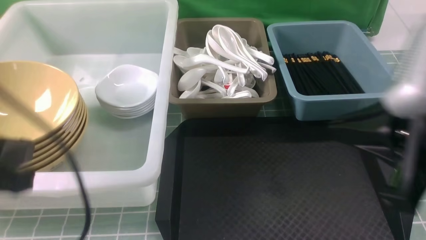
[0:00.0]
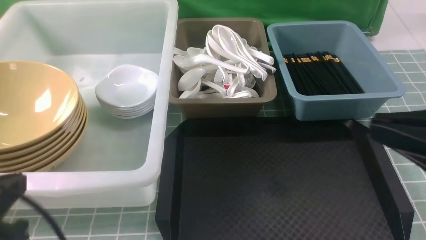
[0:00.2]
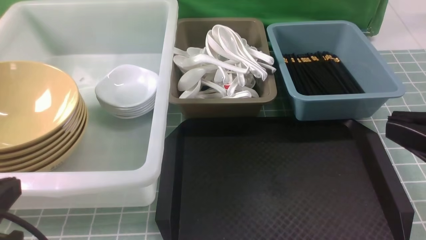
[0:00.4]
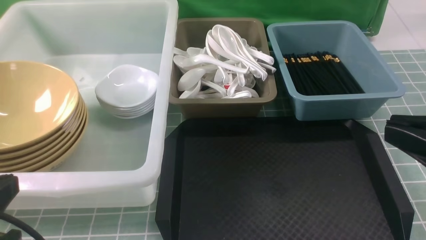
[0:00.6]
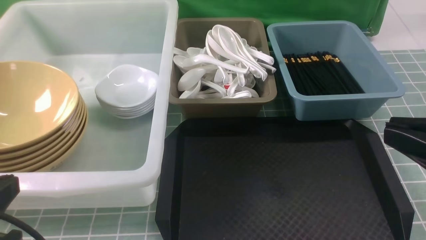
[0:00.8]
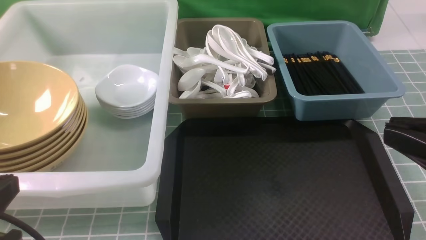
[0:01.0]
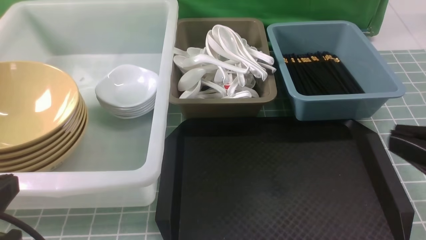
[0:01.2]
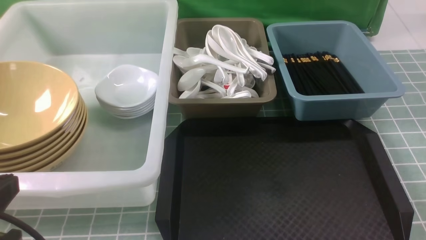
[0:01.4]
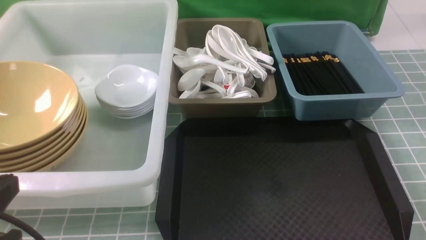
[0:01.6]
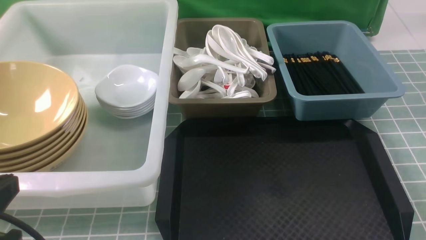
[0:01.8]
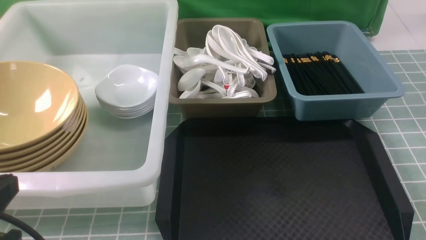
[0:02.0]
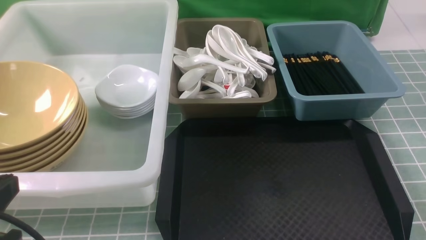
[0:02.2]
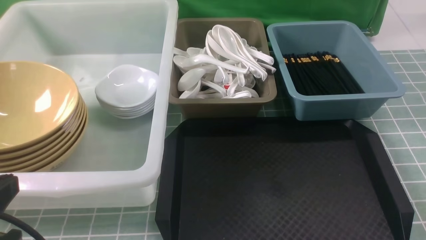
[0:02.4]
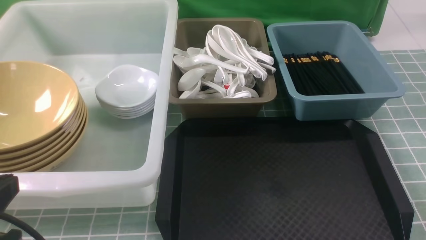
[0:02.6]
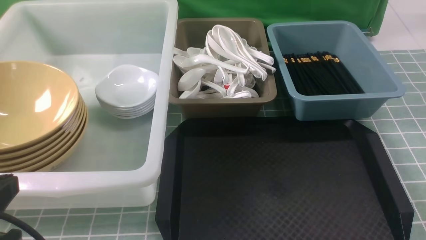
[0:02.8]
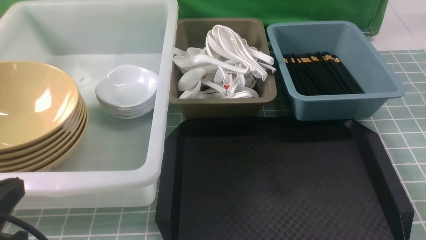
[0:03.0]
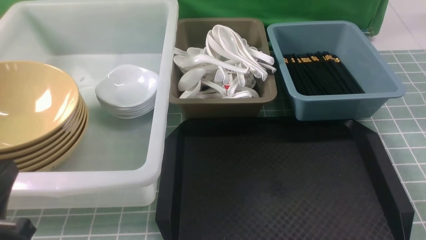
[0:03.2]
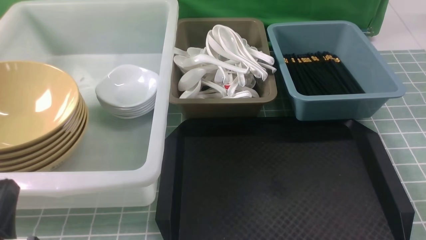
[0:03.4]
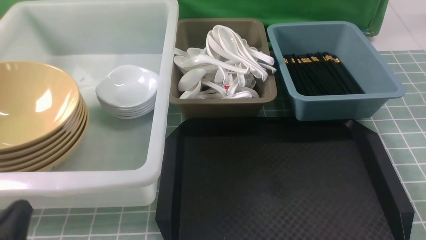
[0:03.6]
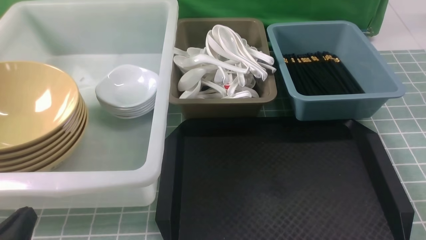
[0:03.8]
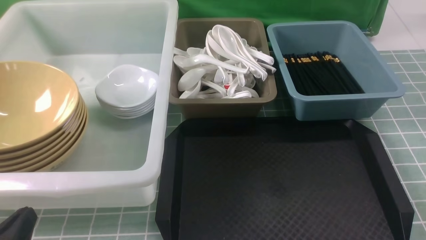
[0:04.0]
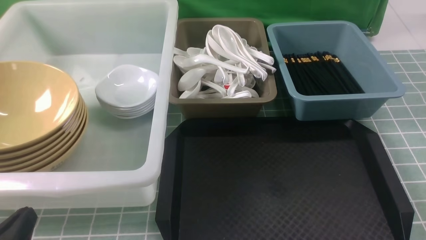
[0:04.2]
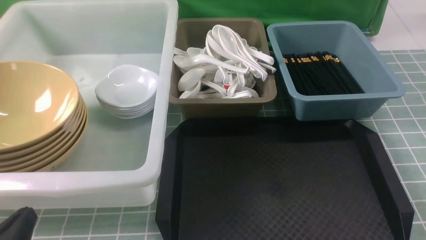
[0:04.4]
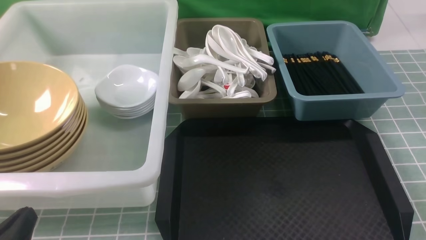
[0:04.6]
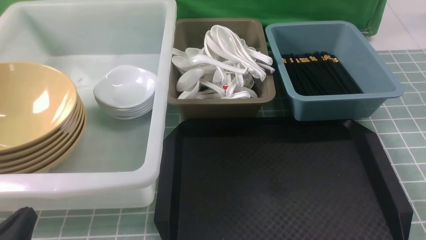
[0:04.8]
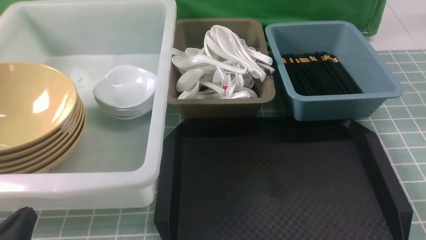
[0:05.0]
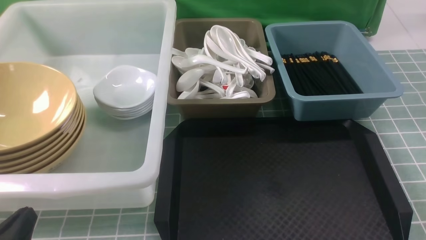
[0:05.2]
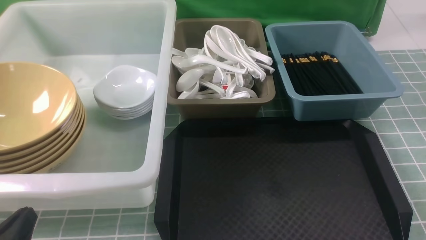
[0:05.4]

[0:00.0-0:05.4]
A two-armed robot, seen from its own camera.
Task of the whole recording: on blue table put chopsticks spoon bowls plates into blue grey white boxes.
0:00.0 to 0:01.4: The right gripper travels downward, to the right and backward by about 15 cm, while the left gripper moves about 5 cm.
0:02.8 to 0:04.0: The left gripper is displaced downward by approximately 10 cm.
0:04.0 to 0:05.4: Neither gripper changes place.

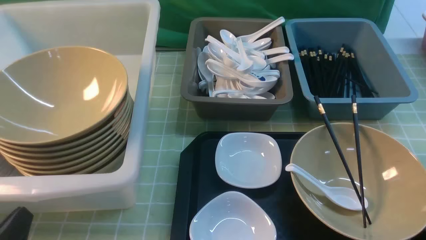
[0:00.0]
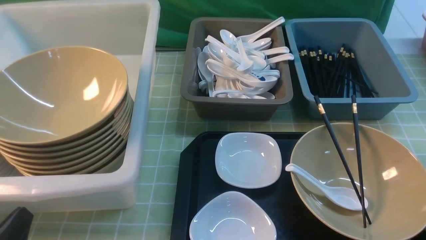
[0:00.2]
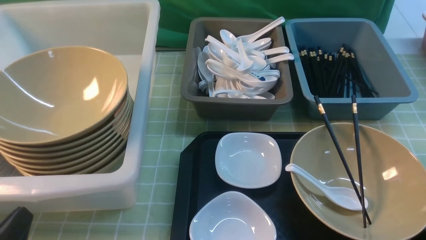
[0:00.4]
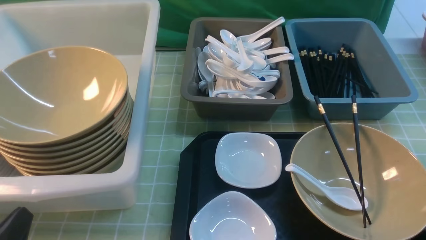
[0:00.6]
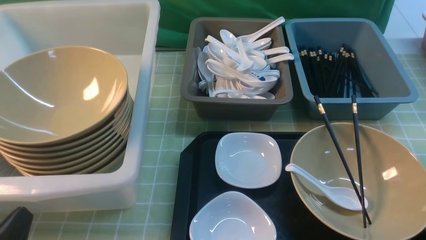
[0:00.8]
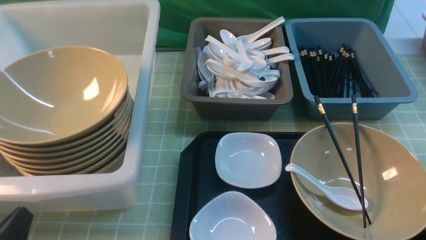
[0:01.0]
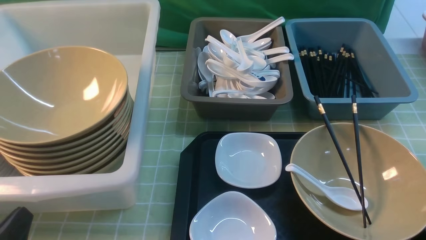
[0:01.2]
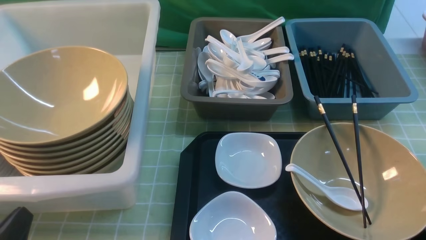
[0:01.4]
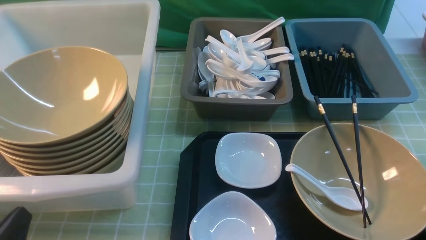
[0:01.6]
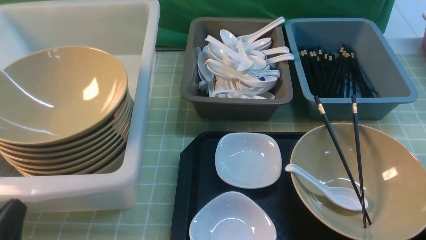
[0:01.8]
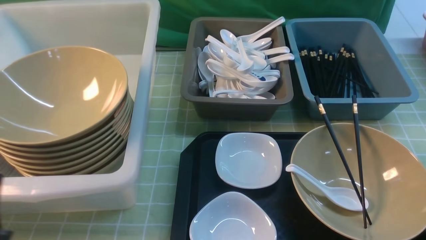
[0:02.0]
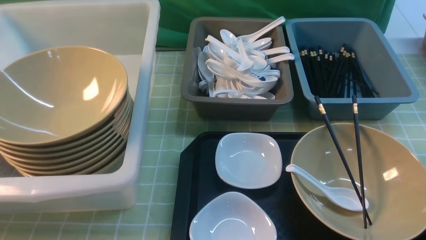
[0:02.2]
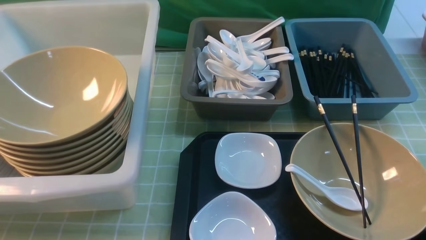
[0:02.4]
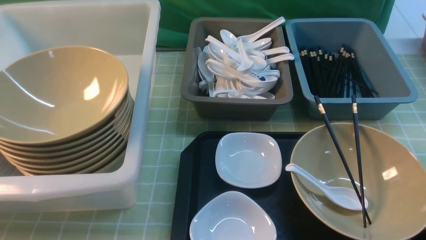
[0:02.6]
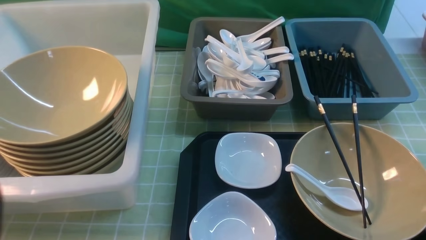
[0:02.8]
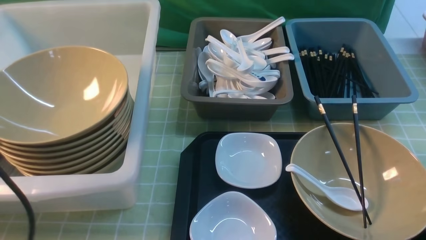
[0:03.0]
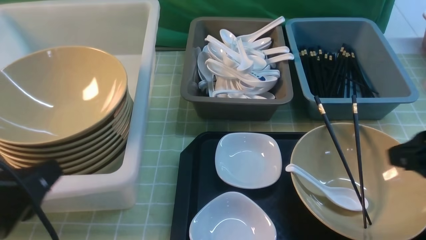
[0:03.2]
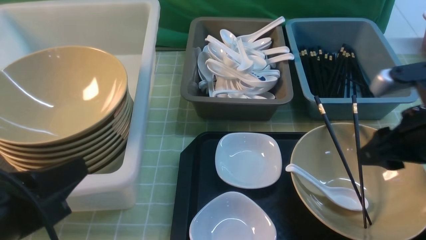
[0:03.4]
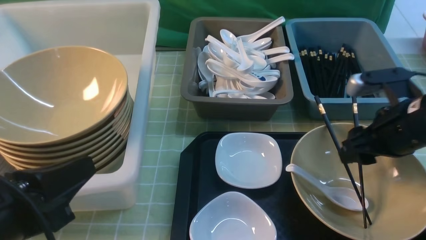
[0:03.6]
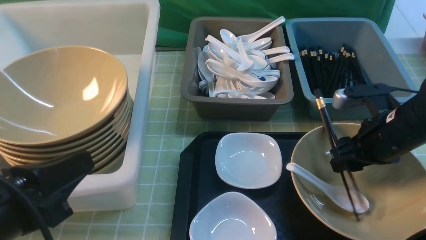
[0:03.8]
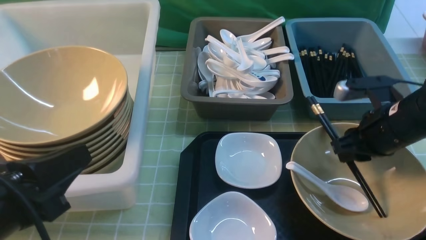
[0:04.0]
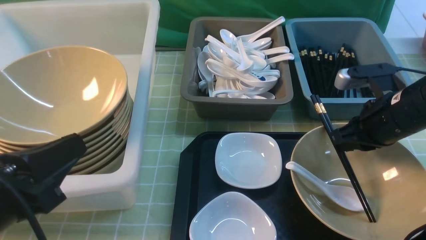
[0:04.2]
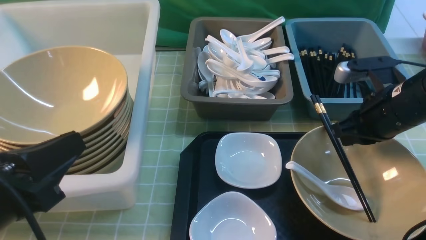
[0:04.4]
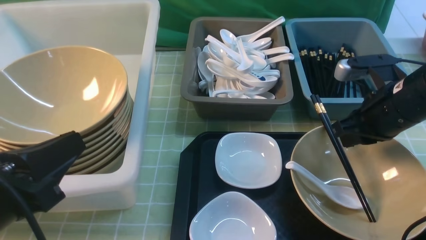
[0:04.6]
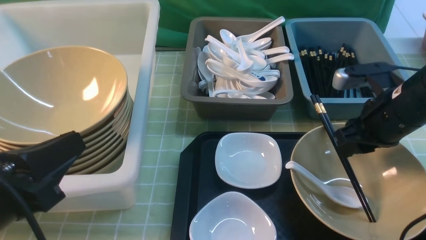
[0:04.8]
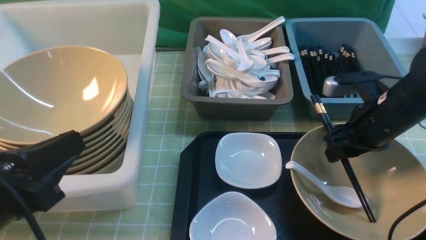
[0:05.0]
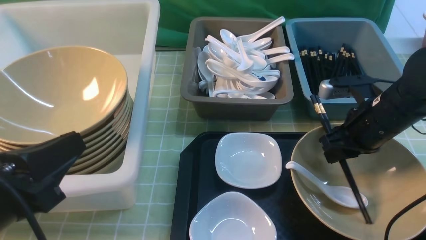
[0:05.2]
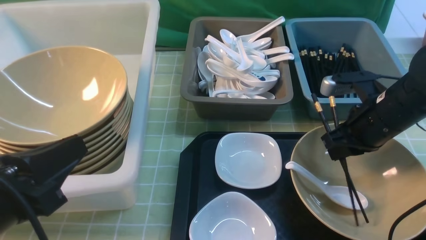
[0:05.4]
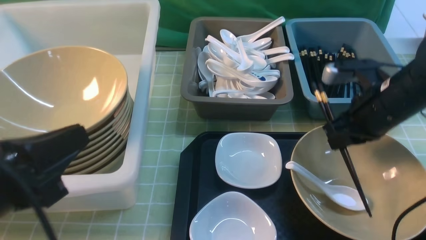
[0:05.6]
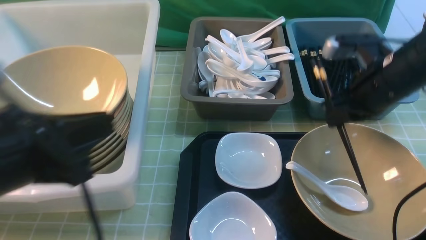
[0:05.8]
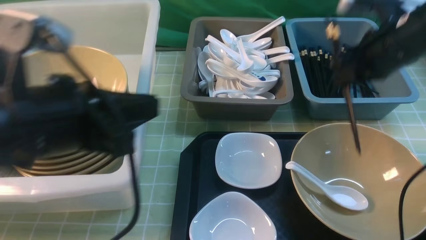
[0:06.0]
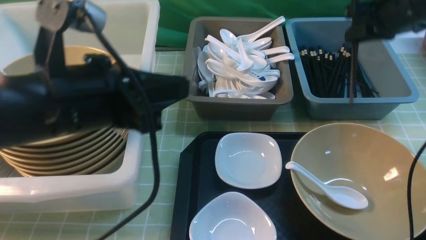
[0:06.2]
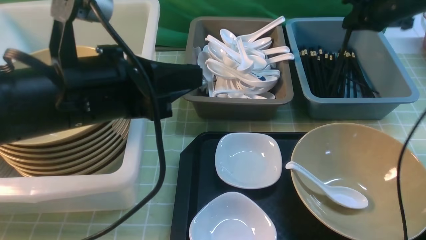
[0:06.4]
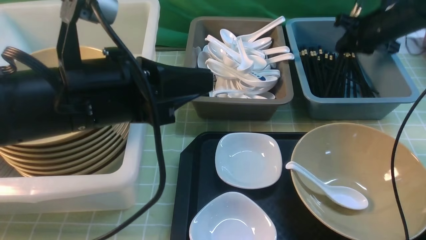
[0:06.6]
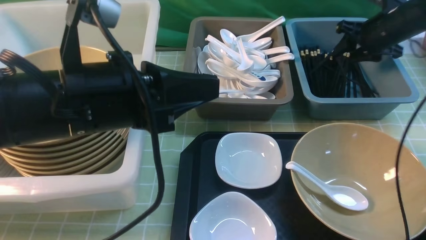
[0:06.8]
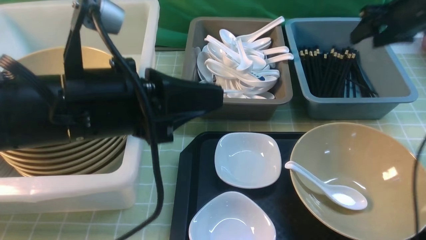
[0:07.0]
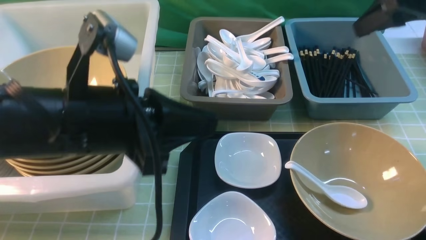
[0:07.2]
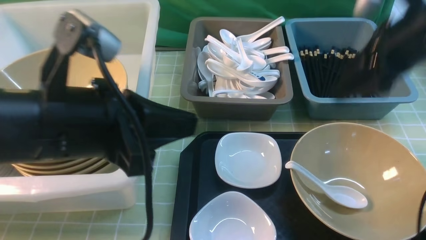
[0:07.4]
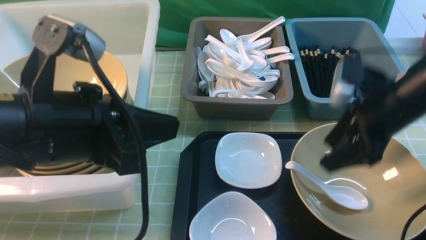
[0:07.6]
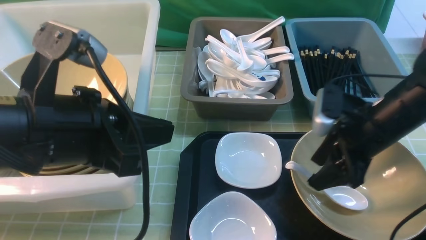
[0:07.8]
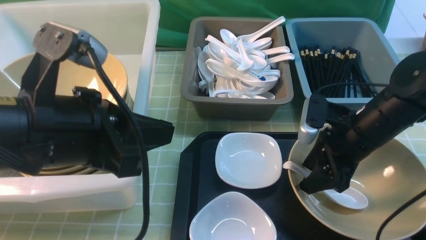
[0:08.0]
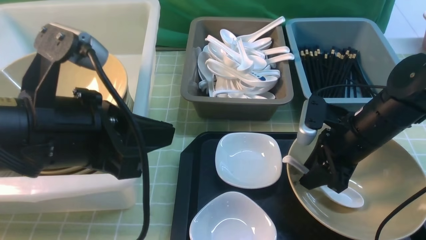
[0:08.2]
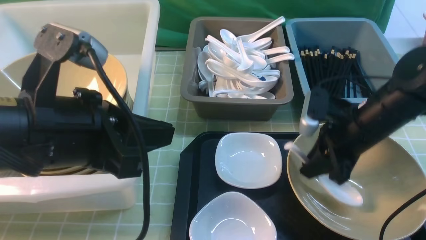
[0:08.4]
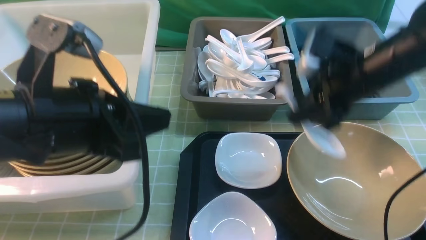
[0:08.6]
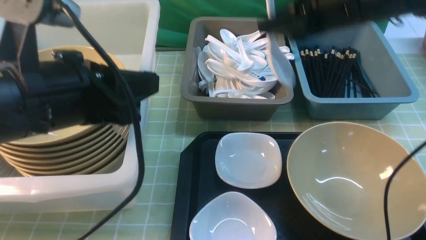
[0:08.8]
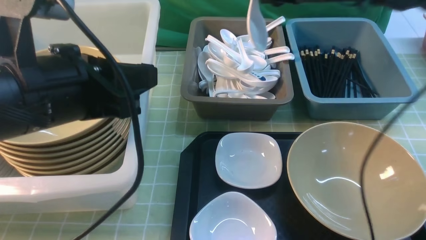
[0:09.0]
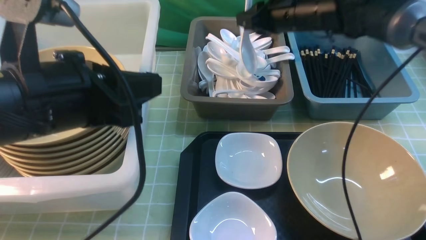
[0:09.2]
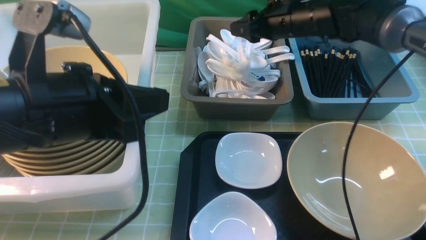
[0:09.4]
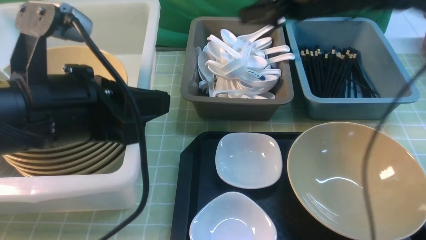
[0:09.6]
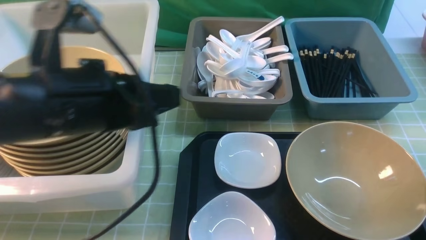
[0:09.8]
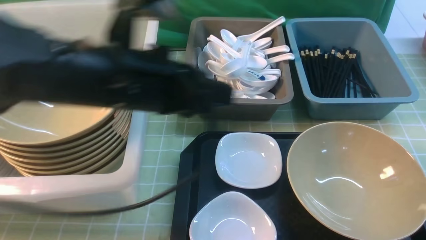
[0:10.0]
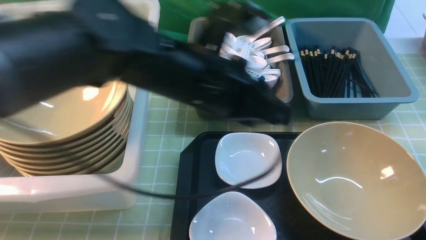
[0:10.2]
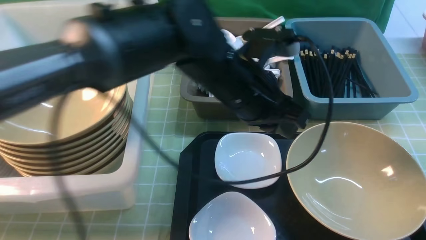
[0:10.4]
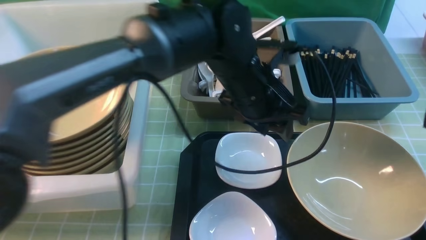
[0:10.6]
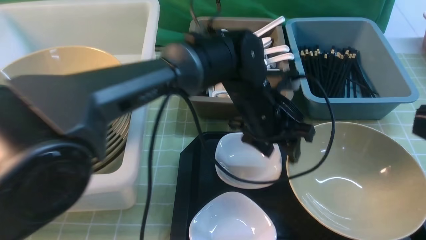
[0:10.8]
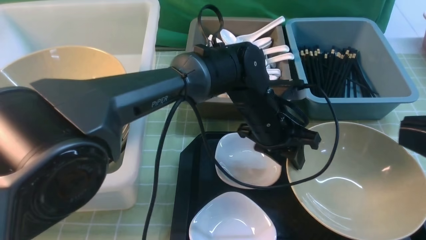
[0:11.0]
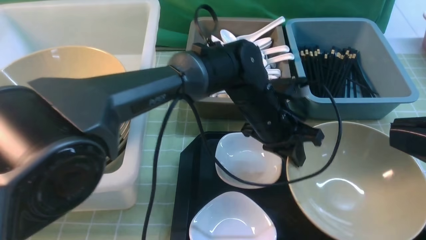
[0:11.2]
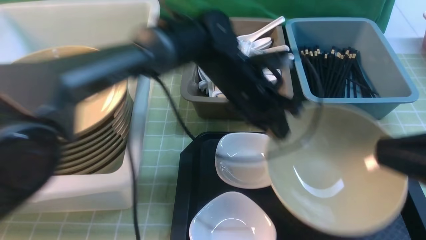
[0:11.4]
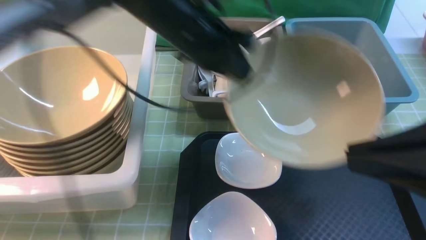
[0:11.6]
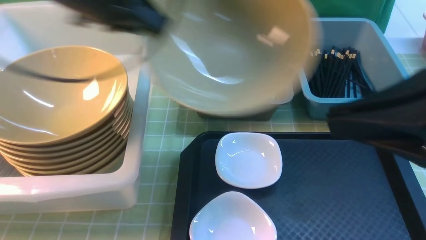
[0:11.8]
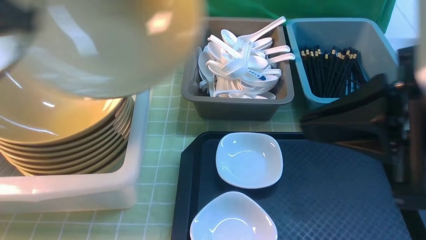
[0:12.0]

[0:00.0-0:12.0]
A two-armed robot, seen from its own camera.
Task of the whole recording: on green table put chopsticks spoon bowls plates into blue grey white boxes.
Step, 0:00.0 to 0:05.8: use the right arm to grab the chopsticks.
Step, 0:06.2 to 0:06.8: use the right arm to put the chopsticks into the small storage box on the right.
Step, 0:07.0 to 0:08.4: use the right arm to grab the soup spoon in the middle.
Step, 0:08.8 to 0:09.4: use the right arm to put the soup spoon into the small storage box in the middle.
Step, 0:09.6 to 0:11.2: use the left arm to grab the yellow noodle bowl on the left.
0:01.6 to 0:03.0: The left gripper goes some 15 cm upward.
0:03.0 to 0:04.4: The right gripper shifts about 15 cm forward, downward and to the left, and closes.
0:04.4 to 0:06.0: The right gripper is displaced forward and upward by roughly 10 cm, and opens, then closes once more, while the left gripper moves forward and to the right, some 10 cm.
0:06.0 to 0:07.6: The right gripper travels backward and downward by approximately 10 cm, and opens up.
0:07.6 to 0:09.0: The right gripper travels forward, upward and to the left by roughly 15 cm, and closes its fingers.
0:09.0 to 0:10.4: The left gripper shifts some 20 cm to the right and forward, while the right gripper heads backward, covering approximately 35 cm, and opens and closes again.
0:10.4 to 0:12.0: The left gripper is displaced to the left by roughly 30 cm. Meanwhile the right gripper heads to the left, covering approximately 5 cm.
